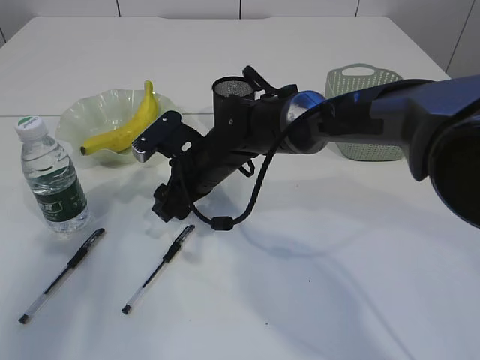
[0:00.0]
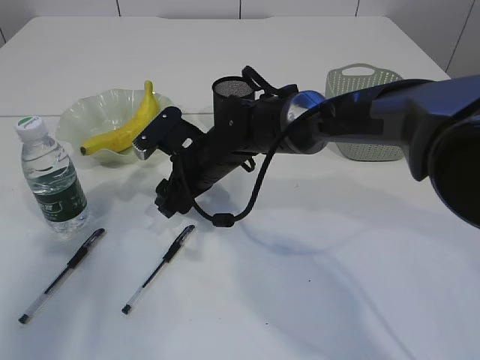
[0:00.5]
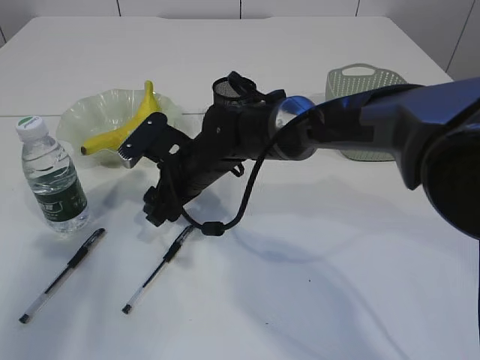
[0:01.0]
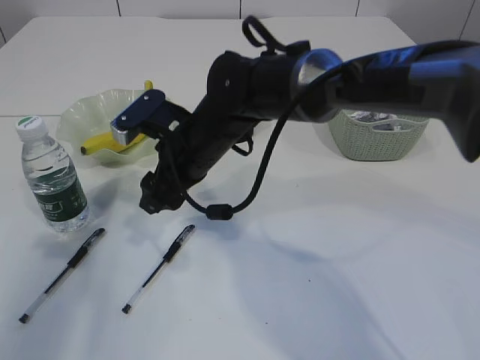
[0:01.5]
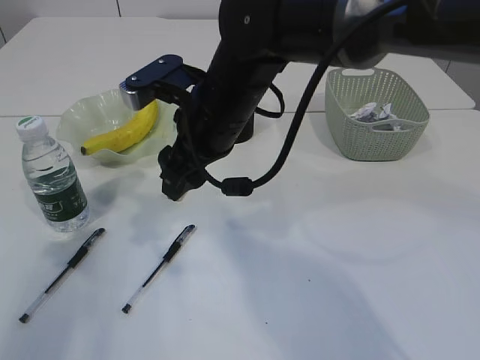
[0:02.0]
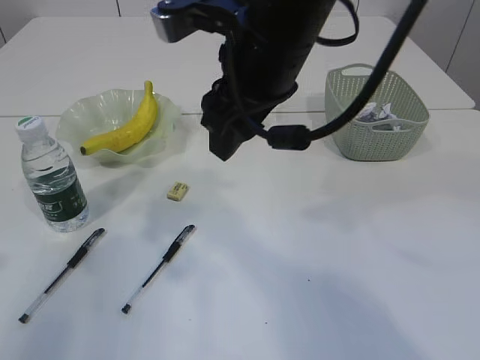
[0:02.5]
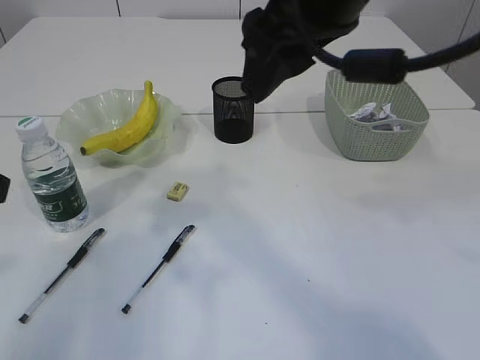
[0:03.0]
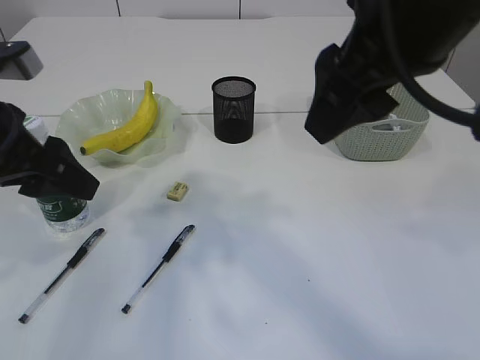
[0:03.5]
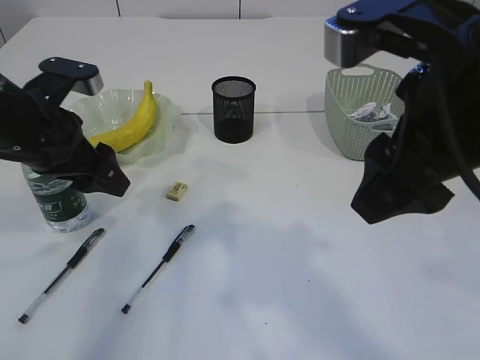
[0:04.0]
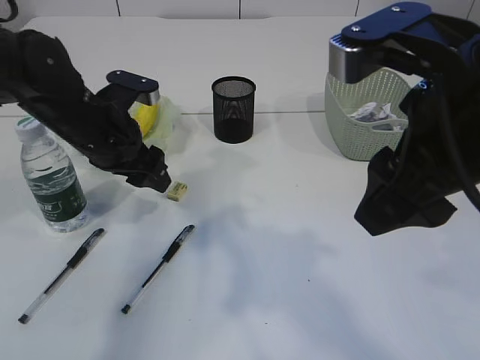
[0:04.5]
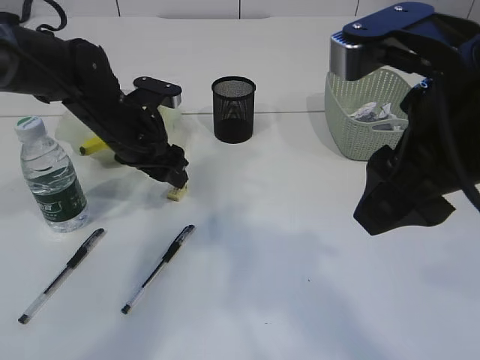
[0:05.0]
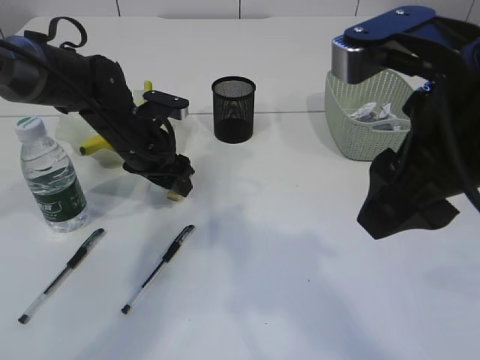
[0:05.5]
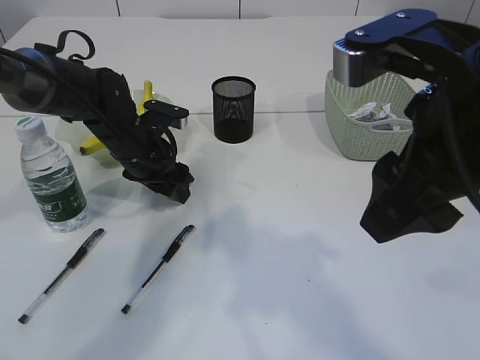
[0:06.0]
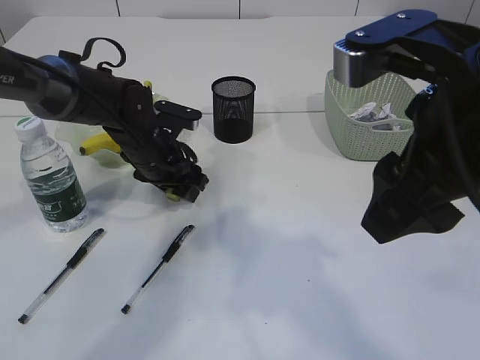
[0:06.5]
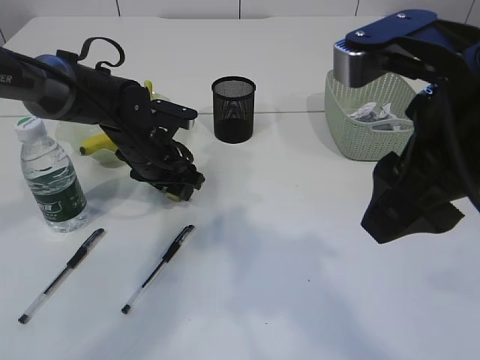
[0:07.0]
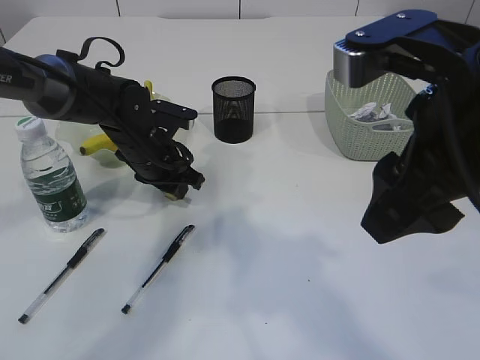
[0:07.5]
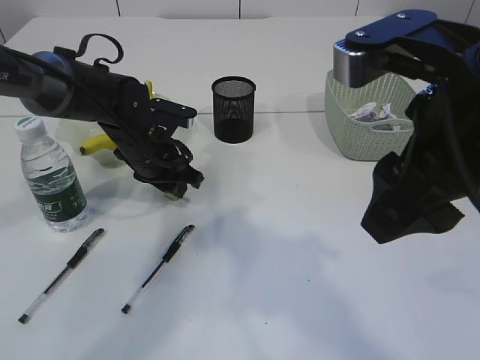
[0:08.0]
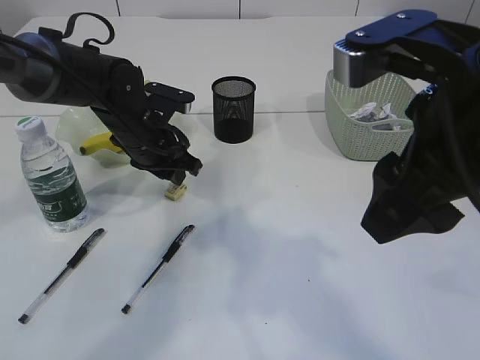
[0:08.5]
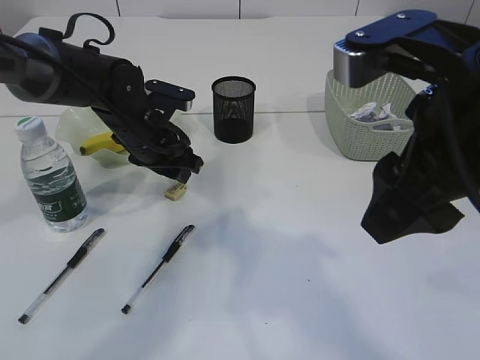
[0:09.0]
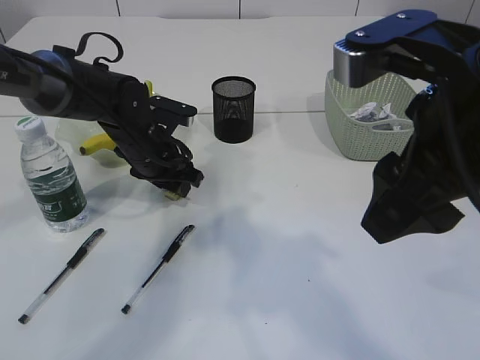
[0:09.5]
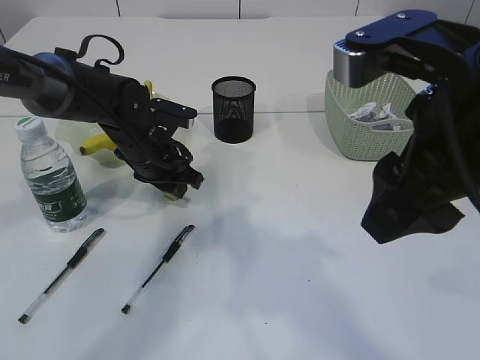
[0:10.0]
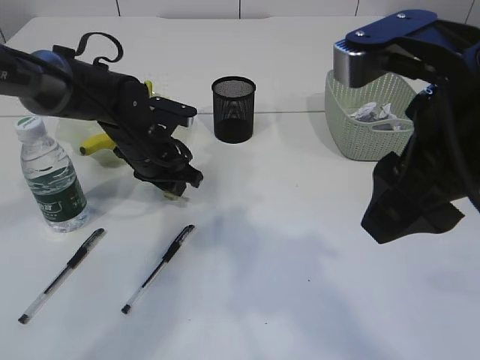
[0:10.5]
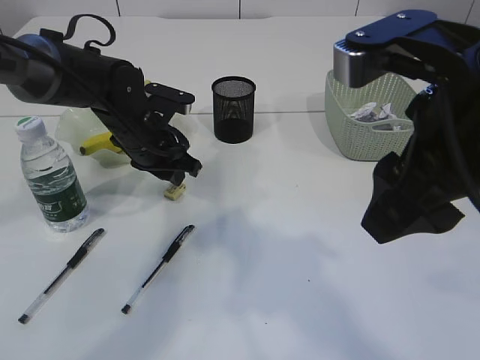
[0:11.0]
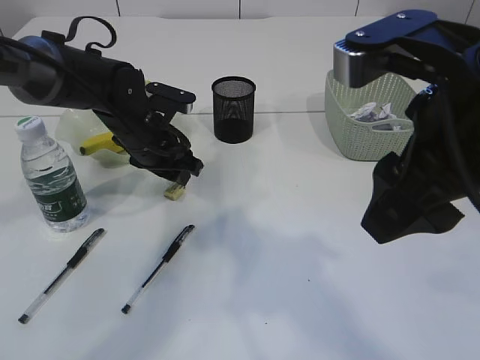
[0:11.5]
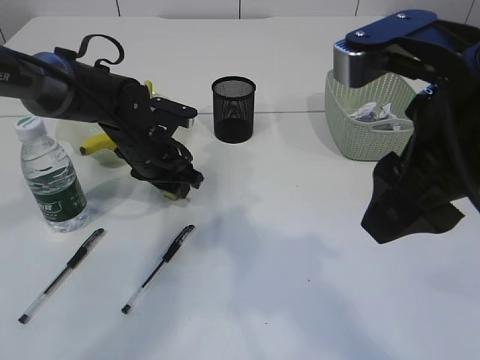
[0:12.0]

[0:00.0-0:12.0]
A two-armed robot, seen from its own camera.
0:00.0 to 0:02.0: The right gripper moves upward, some 10 cm.
0:02.0 to 0:04.0: The right gripper goes some 25 cm backward, to the right and upward. The left gripper is displaced forward, to the right and downward by approximately 15 cm.
0:04.0 to 0:06.0: The left gripper shifts roughly 15 cm forward, downward and to the right.
0:06.0 to 0:08.0: The left gripper closes.

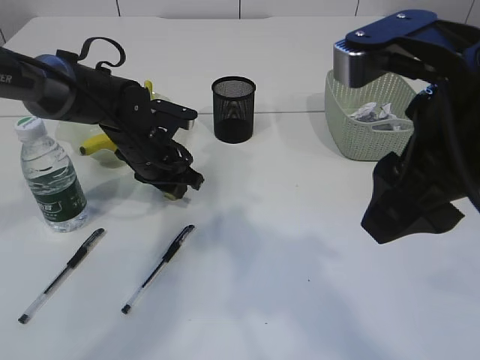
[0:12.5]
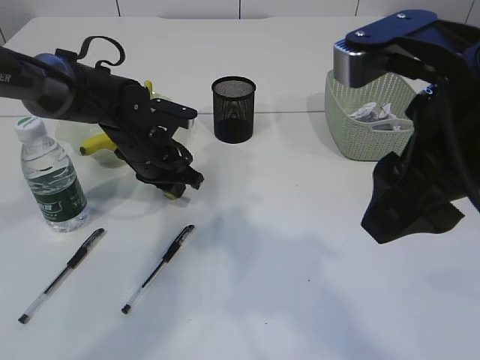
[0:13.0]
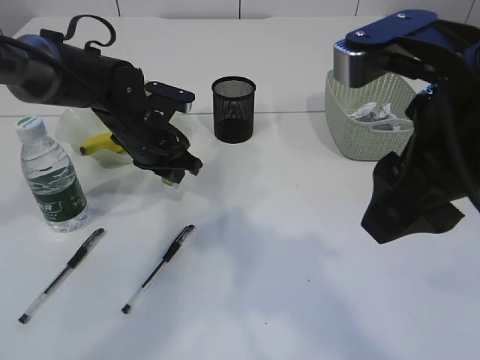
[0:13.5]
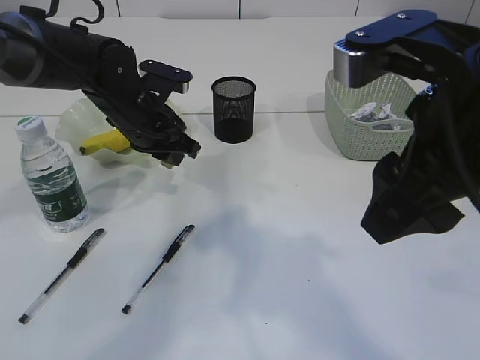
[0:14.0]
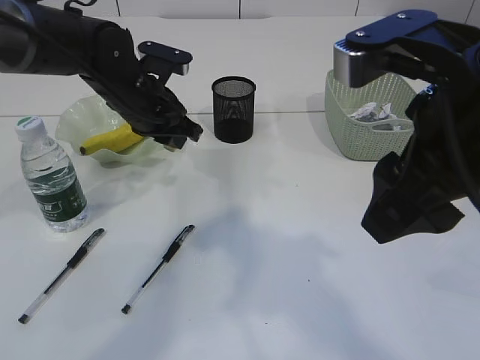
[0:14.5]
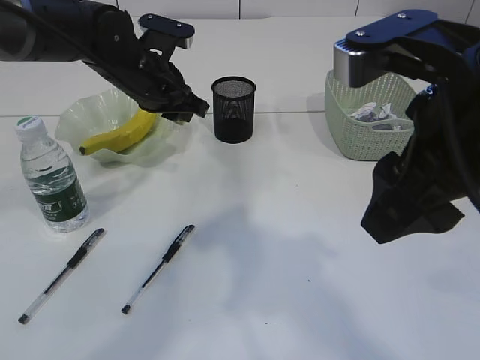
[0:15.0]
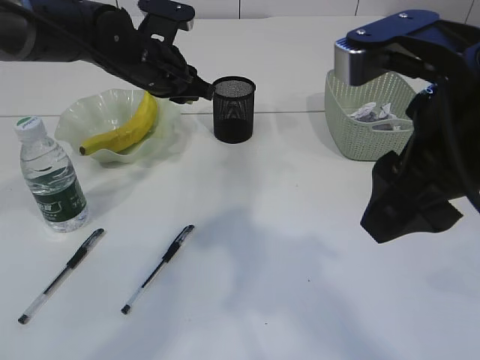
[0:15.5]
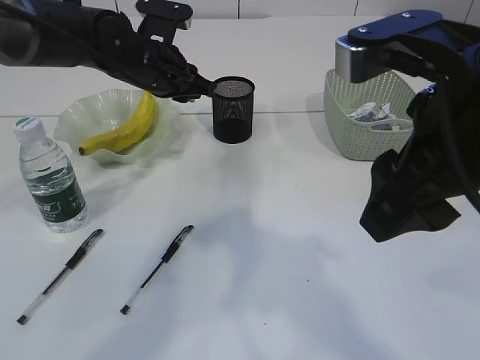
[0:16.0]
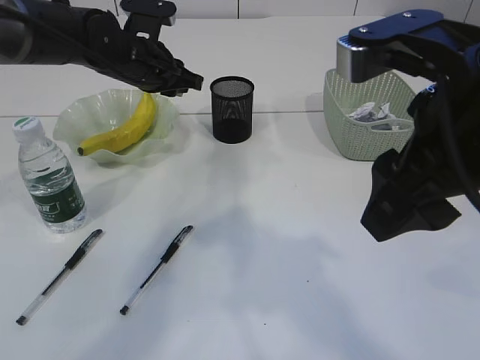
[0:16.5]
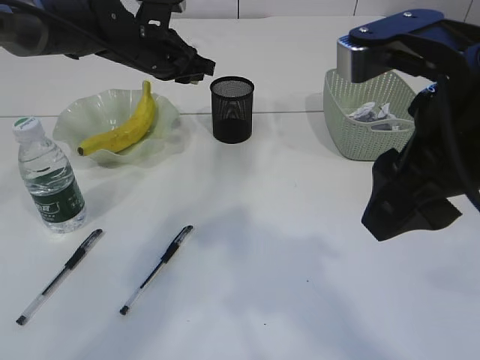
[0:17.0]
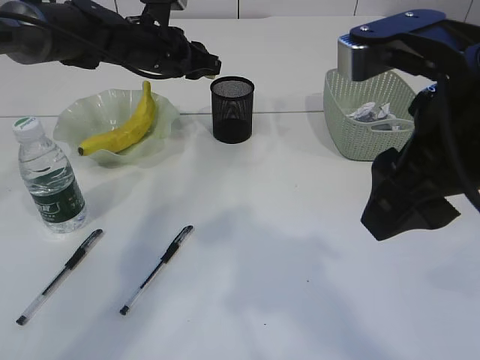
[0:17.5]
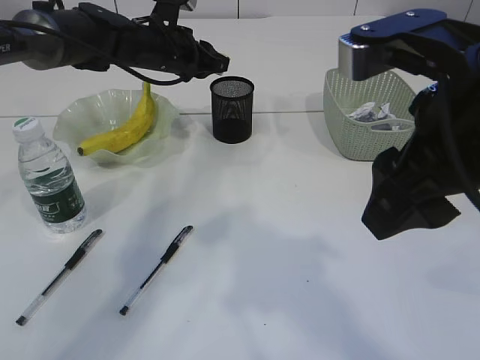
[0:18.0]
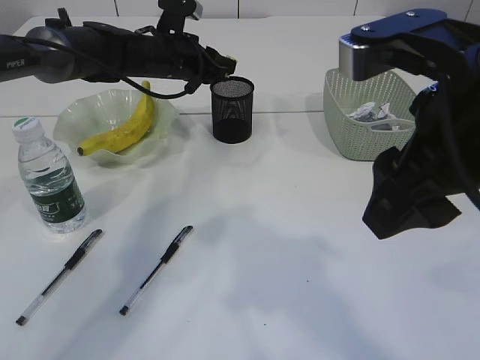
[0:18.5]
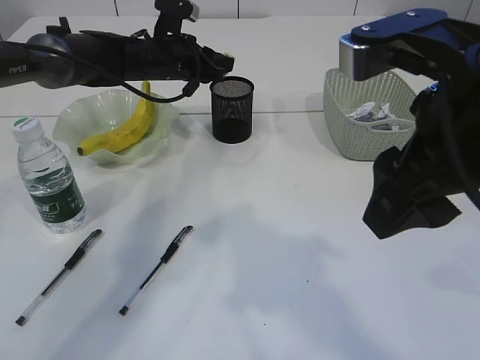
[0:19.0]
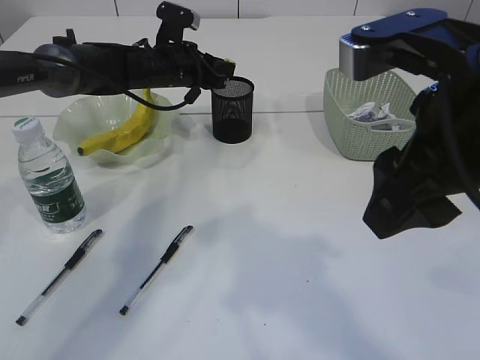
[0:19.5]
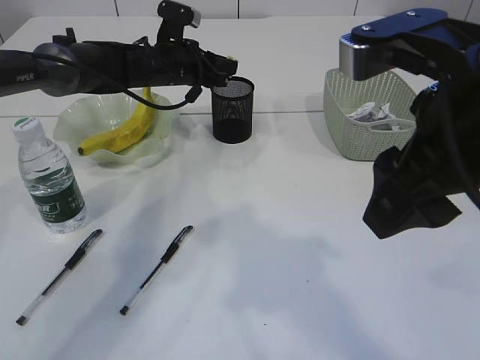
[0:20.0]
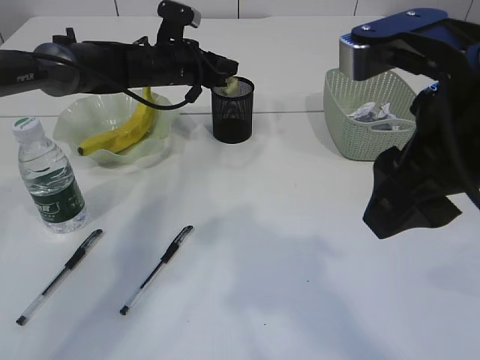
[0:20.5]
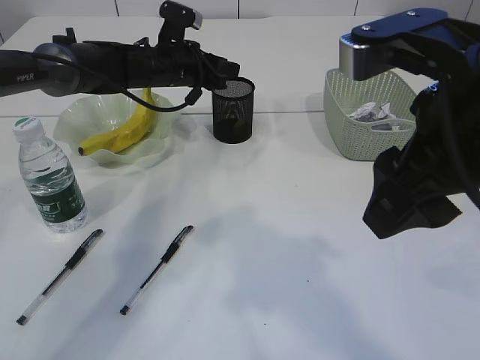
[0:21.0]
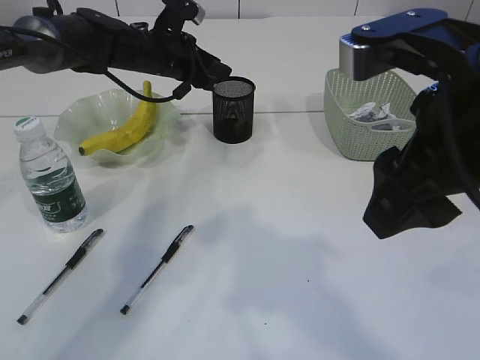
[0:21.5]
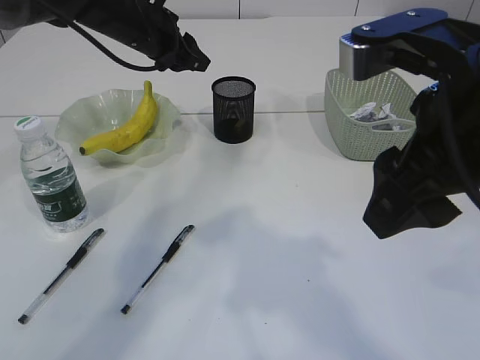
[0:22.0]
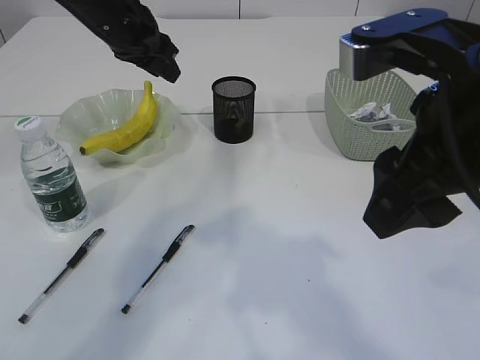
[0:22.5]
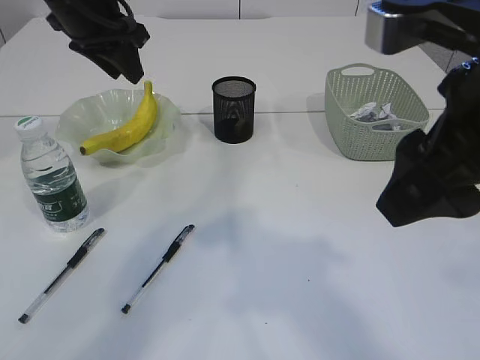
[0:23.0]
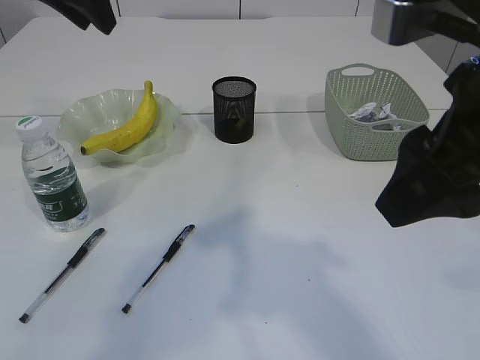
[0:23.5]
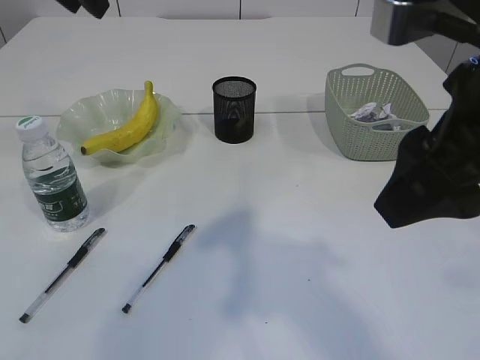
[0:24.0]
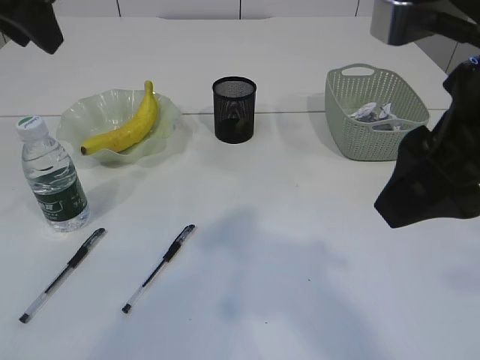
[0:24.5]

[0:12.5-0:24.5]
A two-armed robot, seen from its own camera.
Step, 0:14.5 to 0:22.0: Place the eraser into the pen holder.
0:12.5 to 0:14.5: The left gripper travels upward by some 5 cm.
0:14.5 to 0:16.5: The left gripper moves about 5 cm.
0:16.5 to 0:18.5: The left gripper heads forward, covering about 5 cm.
0:18.5 to 0:20.5: There are only small adjustments of the grippers.
0:20.5 to 0:22.5: The left gripper goes about 10 cm upward and backward.
0:22.5 to 0:24.5: The left gripper heads backward and upward, covering about 20 cm.

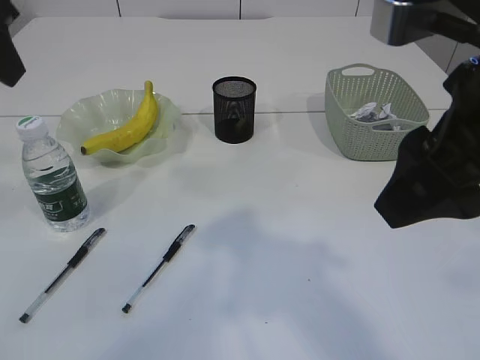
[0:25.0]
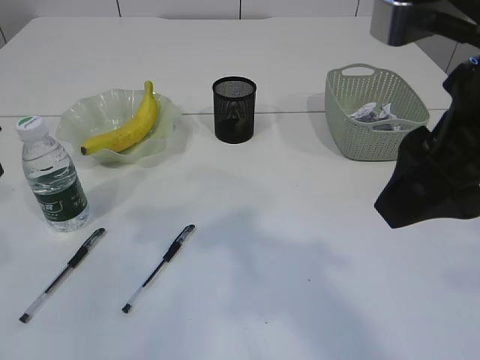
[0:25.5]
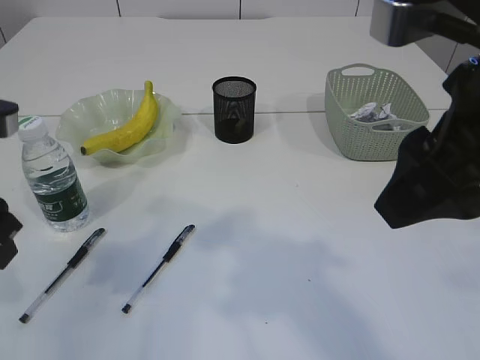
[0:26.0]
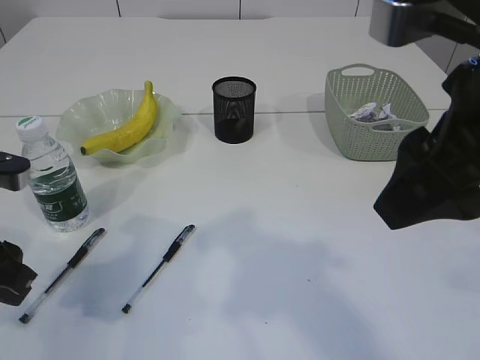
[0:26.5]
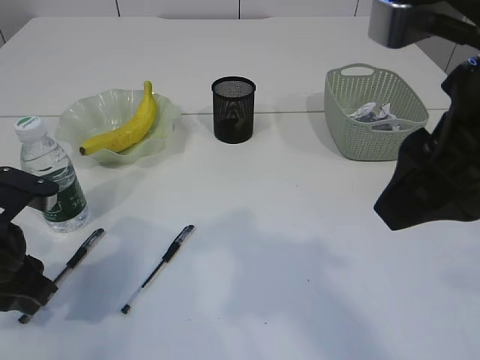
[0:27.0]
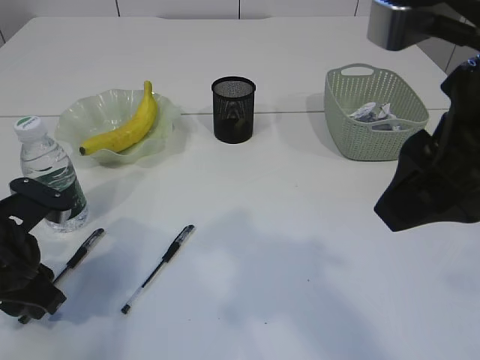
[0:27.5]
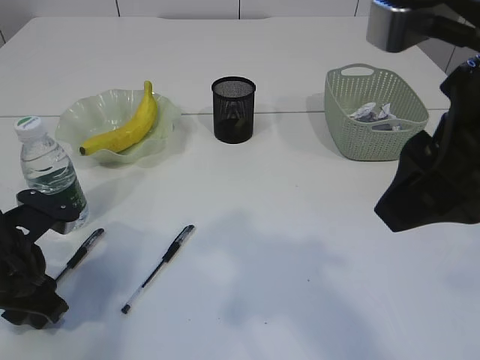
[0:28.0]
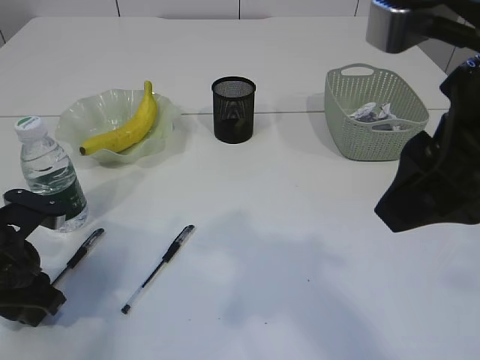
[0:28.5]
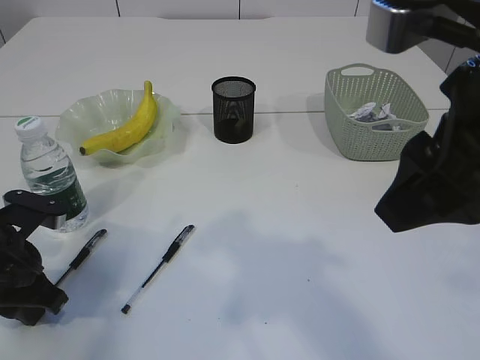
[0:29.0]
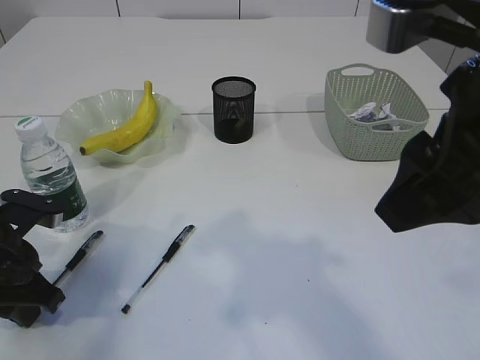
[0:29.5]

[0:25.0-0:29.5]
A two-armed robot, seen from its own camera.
0:25.0 to 0:27.0: The left gripper goes some 25 cm downward.
0:27.0 to 0:29.5: The left gripper closes up.
